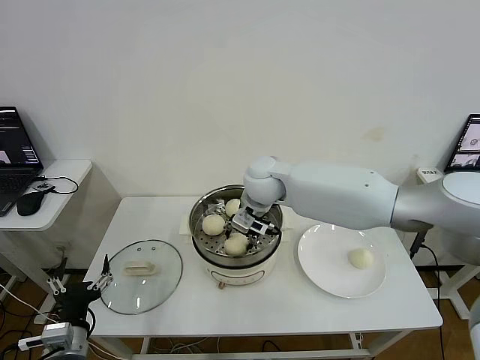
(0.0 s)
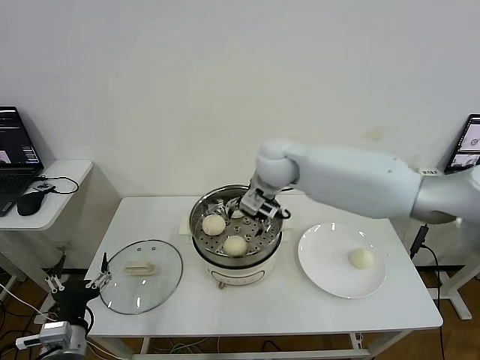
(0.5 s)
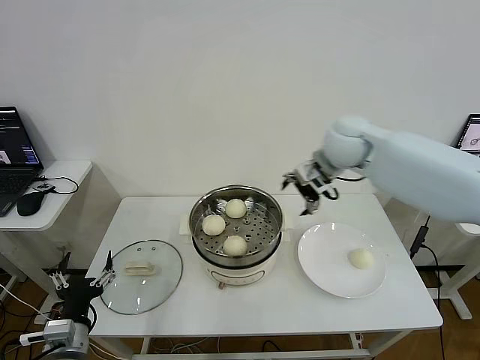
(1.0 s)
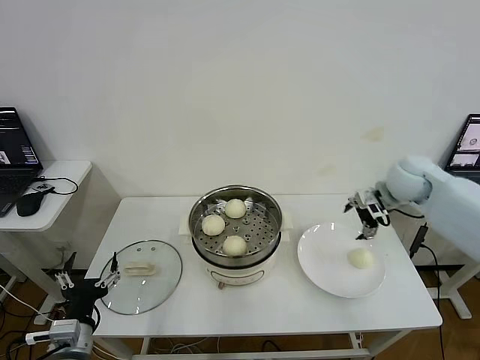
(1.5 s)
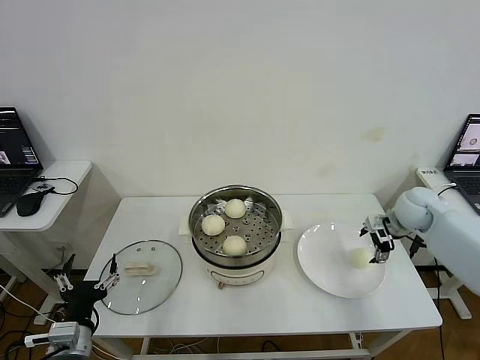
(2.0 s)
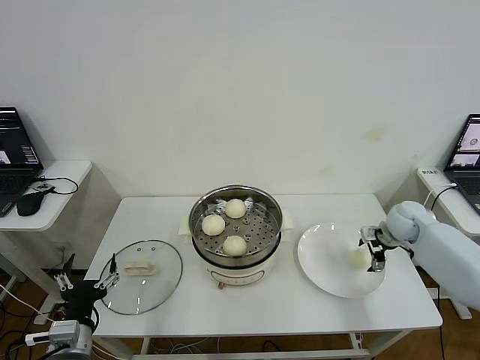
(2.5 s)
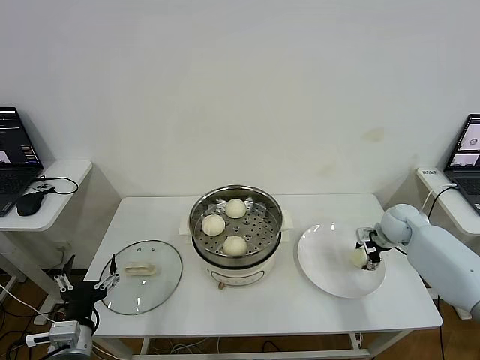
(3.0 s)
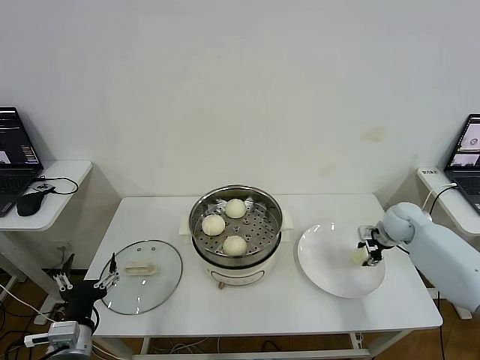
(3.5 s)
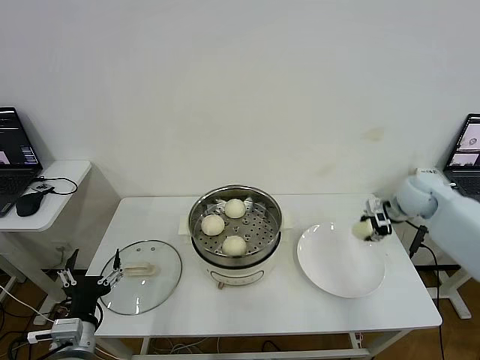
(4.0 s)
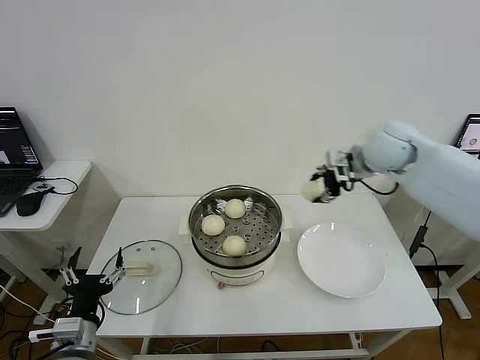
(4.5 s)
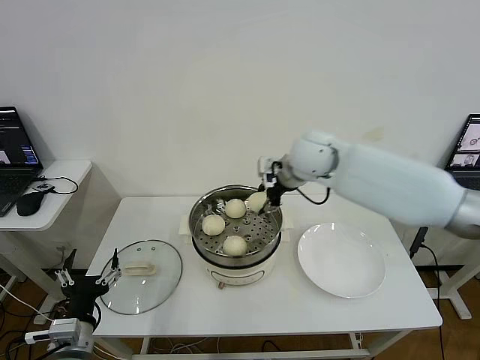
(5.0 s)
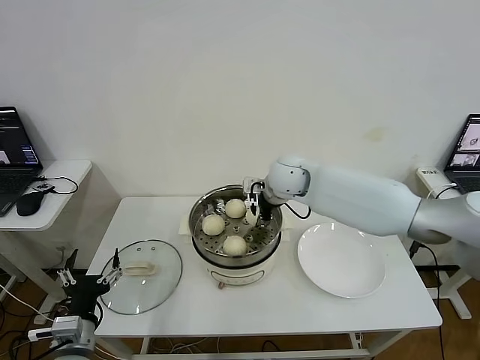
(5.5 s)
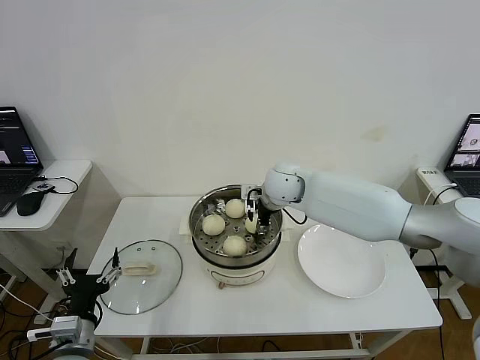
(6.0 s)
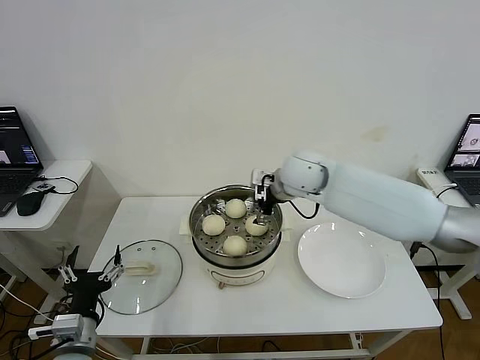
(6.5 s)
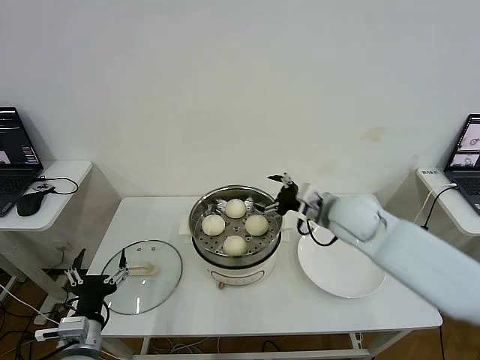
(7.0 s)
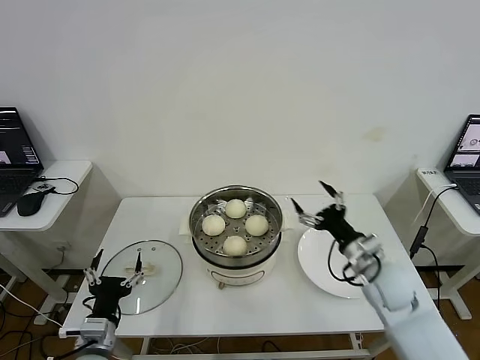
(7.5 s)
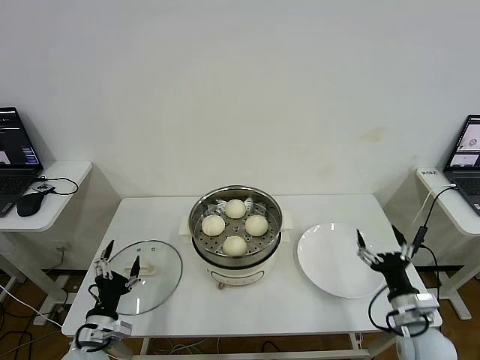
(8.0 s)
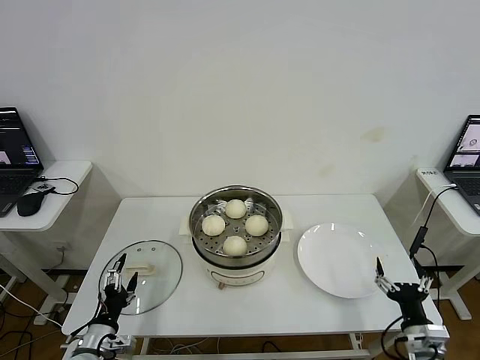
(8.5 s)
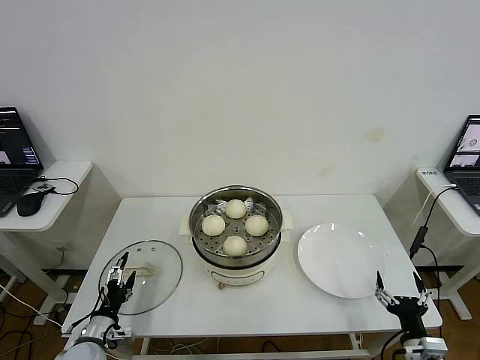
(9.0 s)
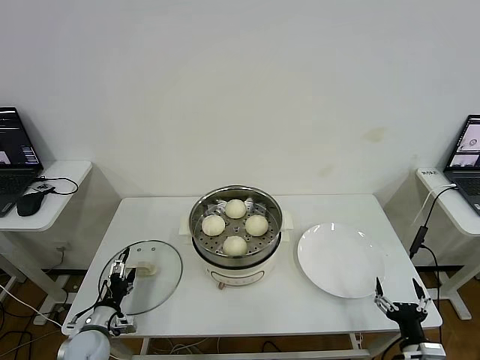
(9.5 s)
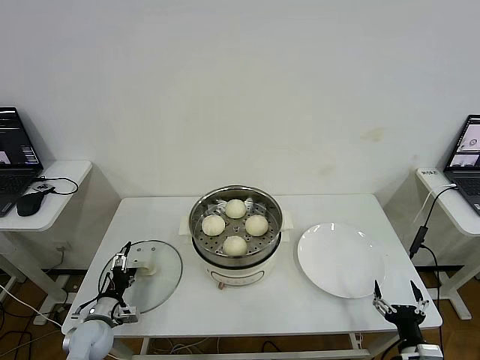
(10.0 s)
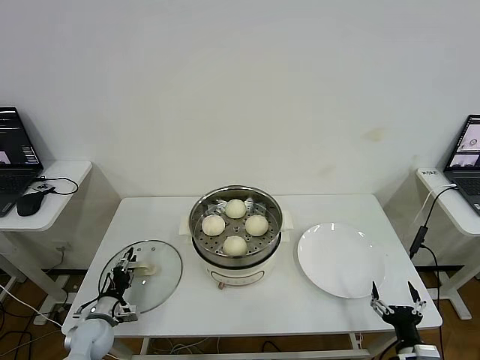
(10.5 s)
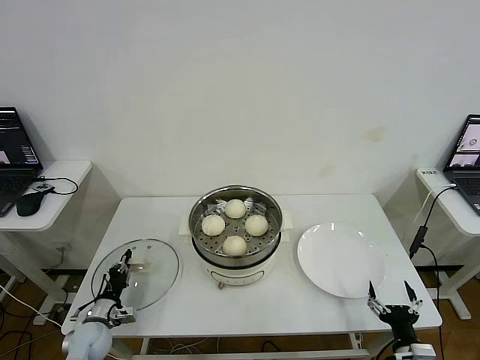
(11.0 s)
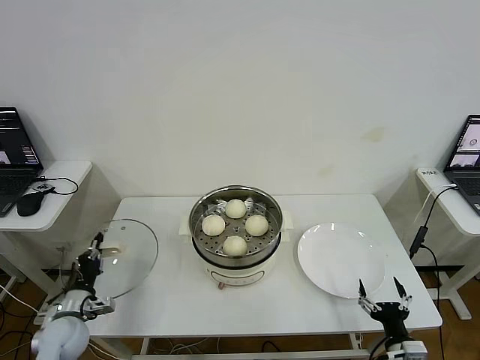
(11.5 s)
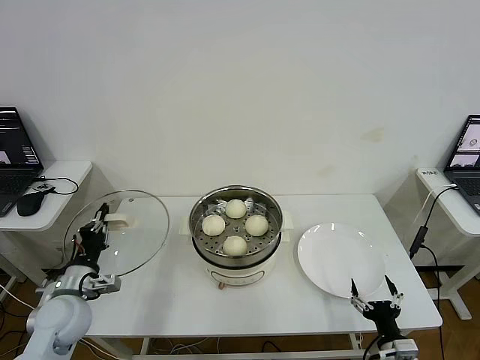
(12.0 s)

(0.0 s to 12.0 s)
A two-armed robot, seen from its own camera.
Step, 0.5 s - 3.0 s: Grasp the baozi in the plate with right gripper.
Step, 4.0 s - 6.0 s: Place the baozi on the steamer with right gripper.
Step, 6.5 s - 11.0 s: Grasp the pot lid with left gripper.
0.0 s - 2.0 s: The right gripper moves to the right, about 35 cm, and opens its fingers.
2.0 s - 4.0 s: The right gripper travels upward by roughly 5 cm, and closes.
4.0 s - 6.0 s: The right gripper heads to the left, covering roughly 30 cm, and opens up.
6.0 s - 8.0 s: The left gripper travels downward by approximately 5 cm; the right gripper is displaced backward, to the right and downward by about 40 cm.
8.0 s - 10.0 s: The left gripper goes approximately 10 cm downward, forward and to the left. Meanwhile the right gripper goes roughly 10 cm backward and downward.
10.0 s - 12.0 s: The left gripper goes about 15 cm upward, and closes.

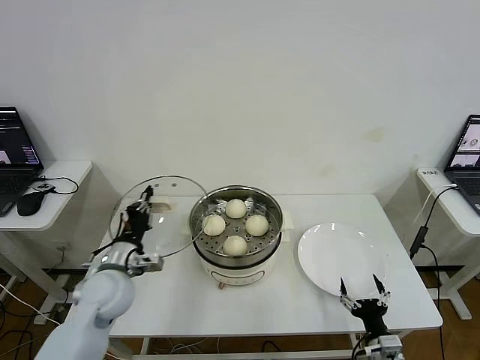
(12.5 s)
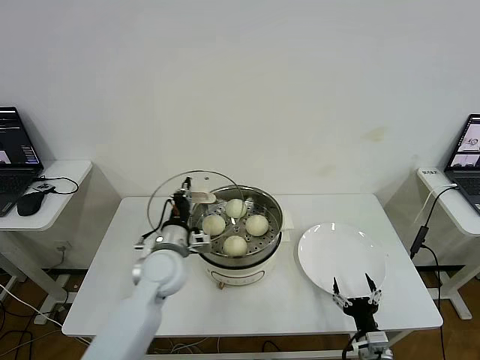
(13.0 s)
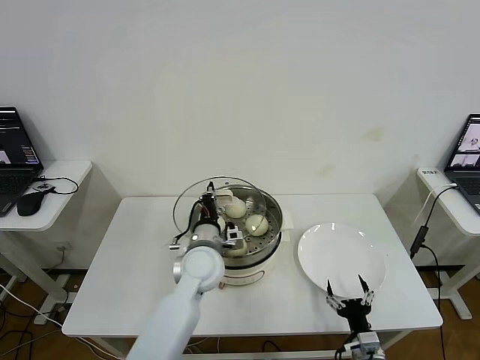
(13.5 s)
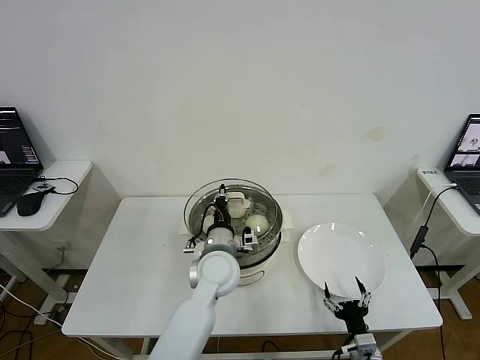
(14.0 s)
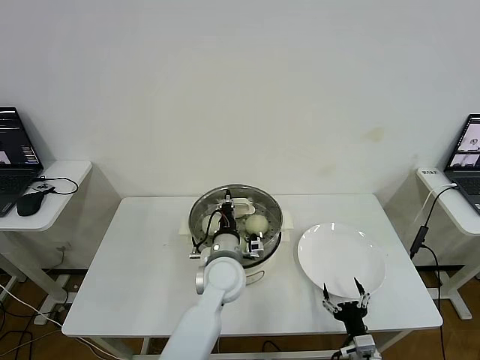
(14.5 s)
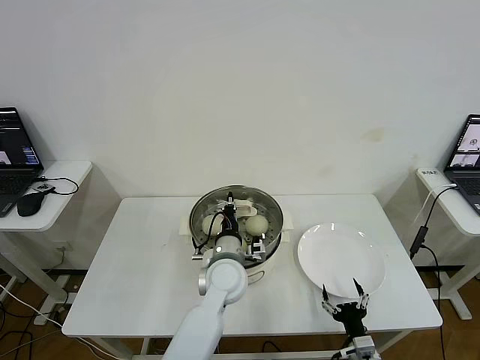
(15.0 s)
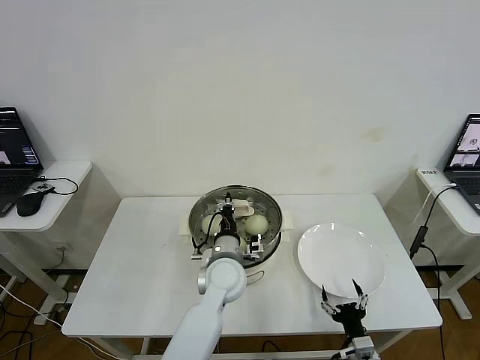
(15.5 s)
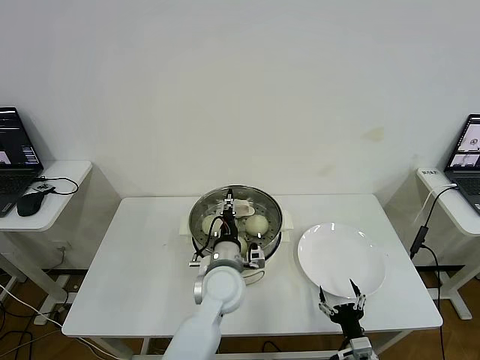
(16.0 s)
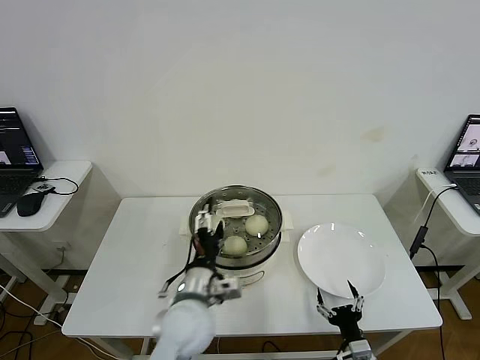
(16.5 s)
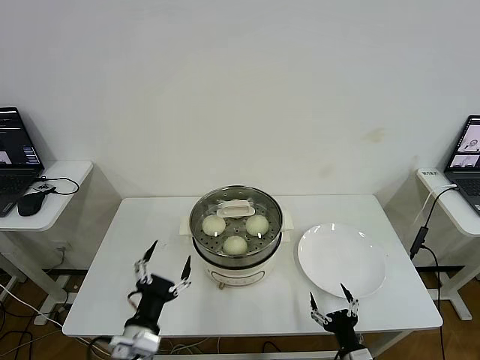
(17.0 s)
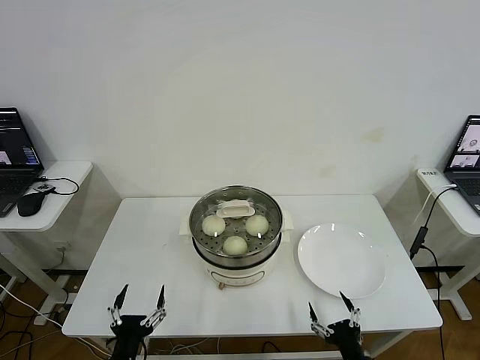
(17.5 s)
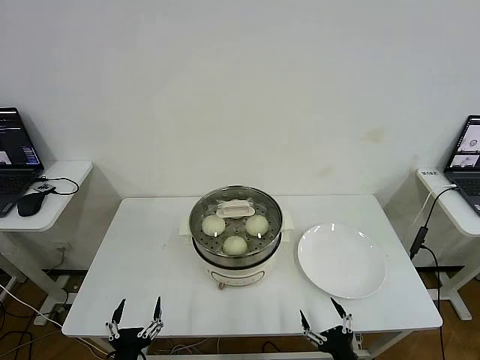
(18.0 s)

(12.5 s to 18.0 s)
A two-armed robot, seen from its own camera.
Step, 12.5 s - 16.0 s: Place the pot lid on the steamer with left gripper.
12.5 s - 14.5 s: The left gripper shifts approximately 25 cm to the right.
14.5 s - 16.0 s: The left gripper opens up.
16.0 s - 18.0 s: The left gripper goes approximately 35 cm backward, to the left and downward, and opens its fingers; the right gripper shifts roughly 10 cm backward and upward.

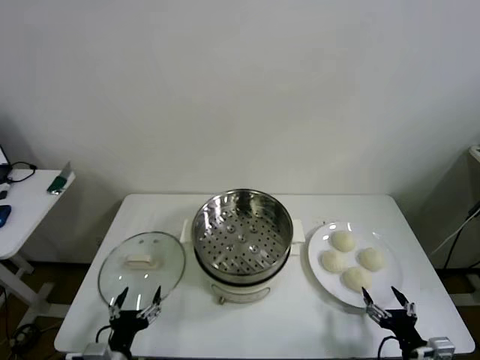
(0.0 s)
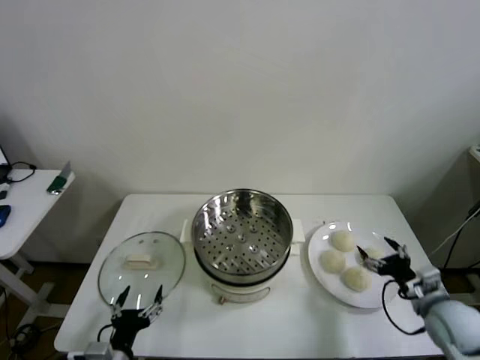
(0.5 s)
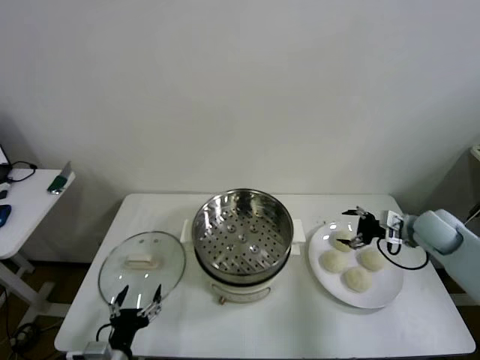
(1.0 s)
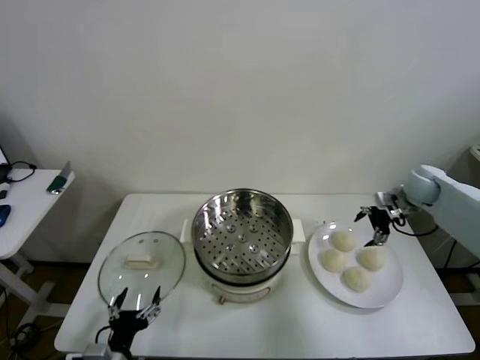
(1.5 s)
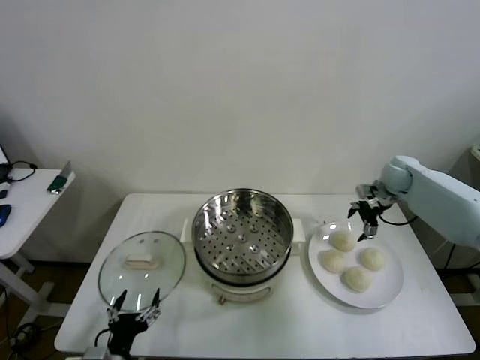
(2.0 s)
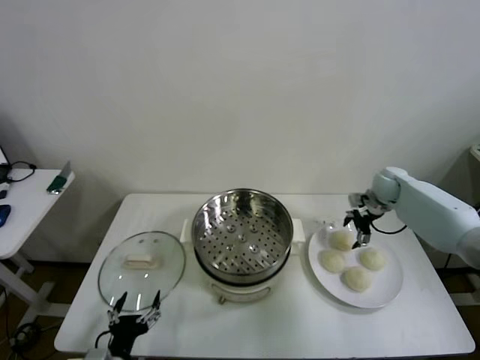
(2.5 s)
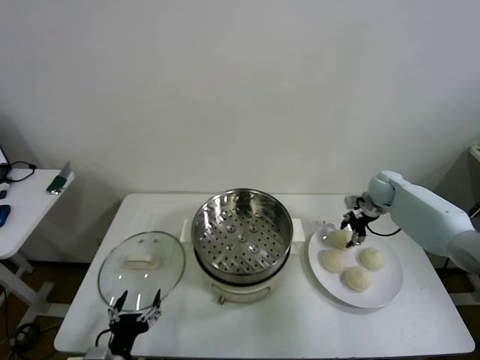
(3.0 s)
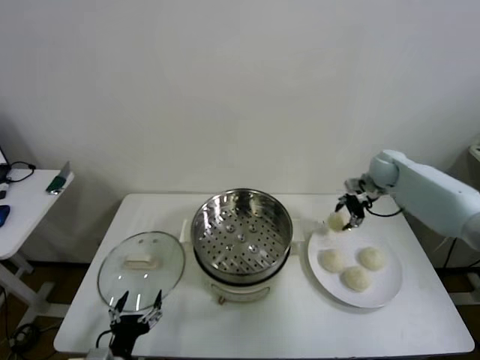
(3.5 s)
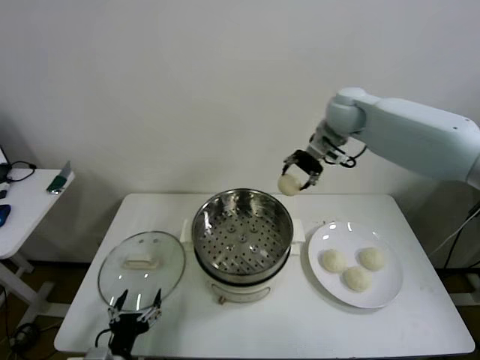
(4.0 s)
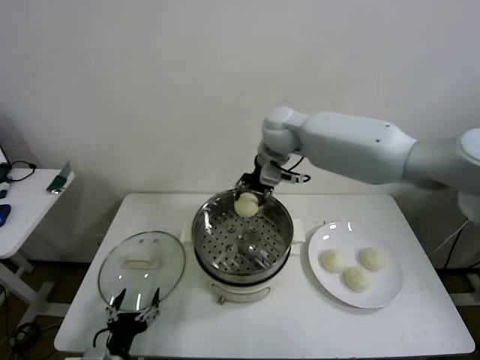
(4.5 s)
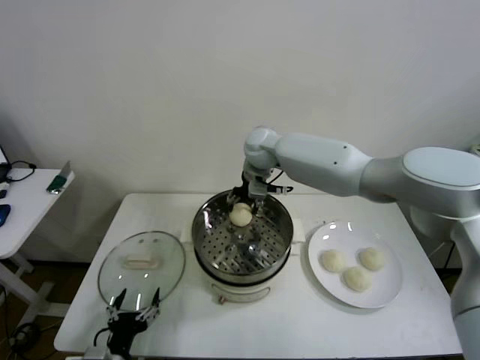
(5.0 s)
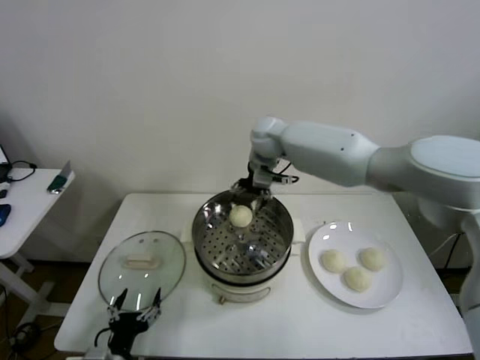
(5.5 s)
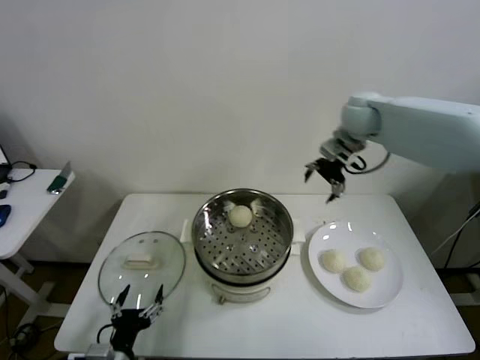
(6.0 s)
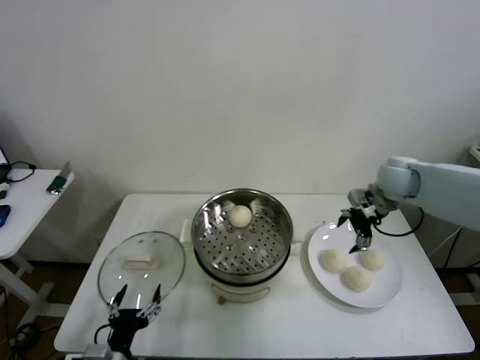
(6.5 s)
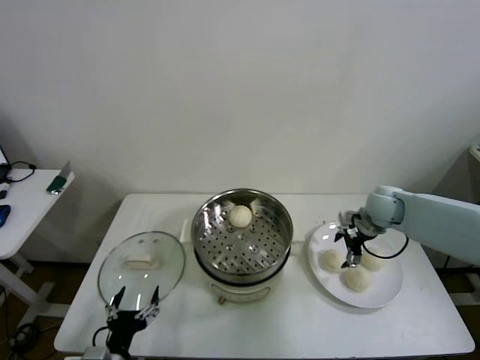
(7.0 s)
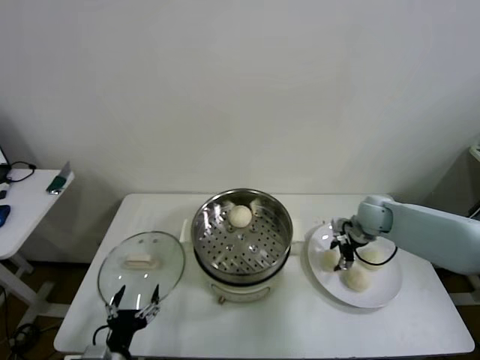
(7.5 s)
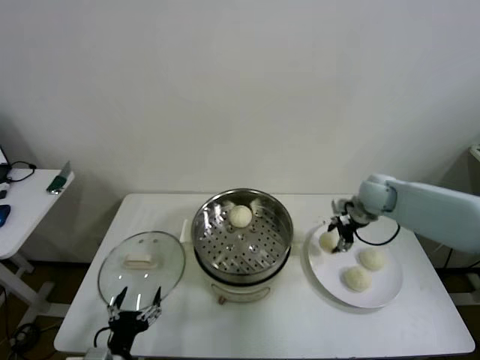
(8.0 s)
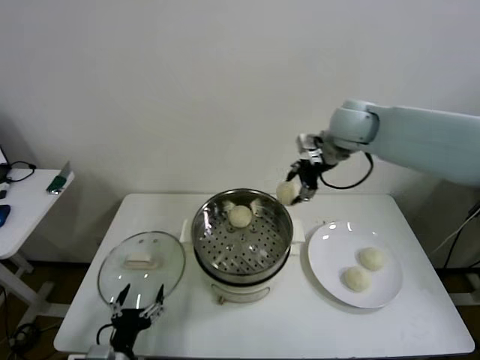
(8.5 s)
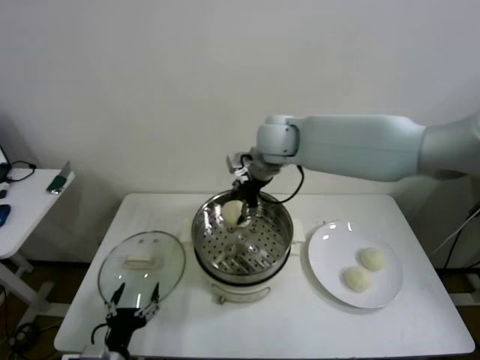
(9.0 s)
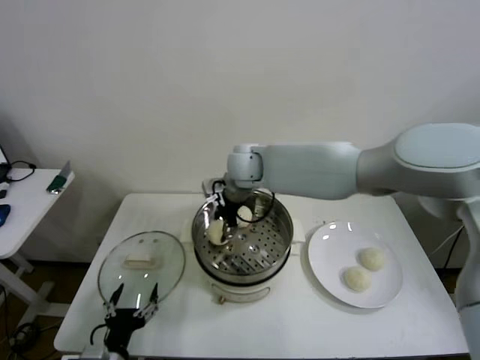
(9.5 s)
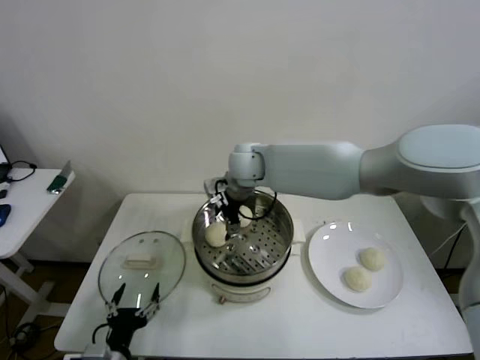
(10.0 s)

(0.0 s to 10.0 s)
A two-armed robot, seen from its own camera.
Step, 0.0 s - 3.0 s: Grasp the baozi in the plate with right gripper.
Step, 3.5 s - 5.5 s: Place the baozi on the steamer with right gripper.
Step, 6.0 s - 7.0 s: Grasp the baozi in the plate with right gripper.
Step, 8.0 s - 10.0 s: Place the baozi on the steamer with right gripper.
2.0 s - 4.0 s: The right gripper moves to the left and upward, approximately 30 cm, and closes up.
4.0 s - 6.0 s: The right gripper shifts roughly 10 cm to the right, and opens.
6.0 s - 8.0 s: The right gripper travels downward by roughly 15 cm, and closes up.
8.0 s - 10.0 s: The right gripper moves to the left, about 30 cm, and opens up.
